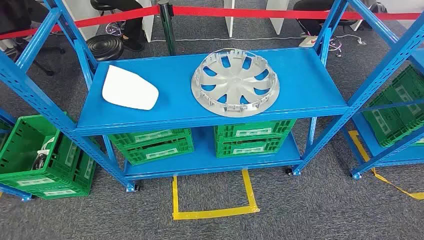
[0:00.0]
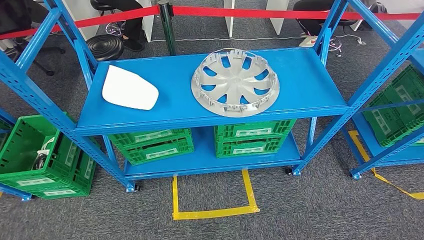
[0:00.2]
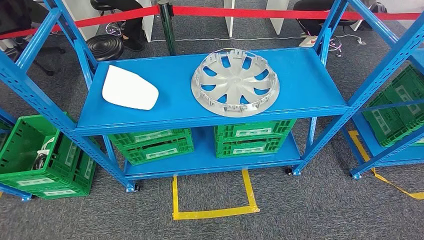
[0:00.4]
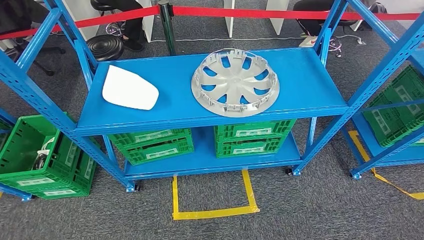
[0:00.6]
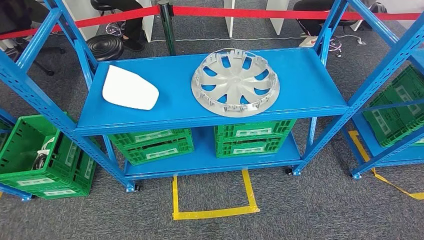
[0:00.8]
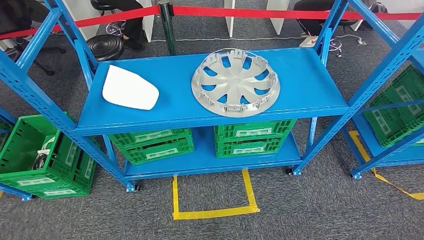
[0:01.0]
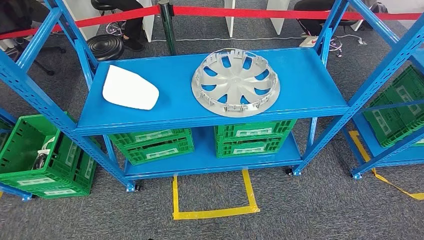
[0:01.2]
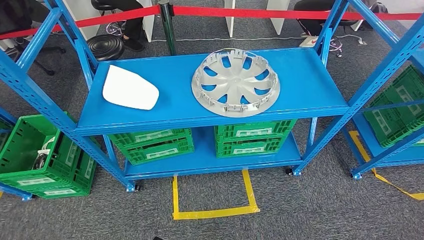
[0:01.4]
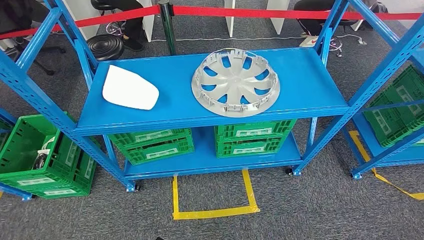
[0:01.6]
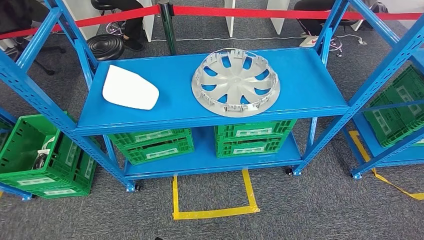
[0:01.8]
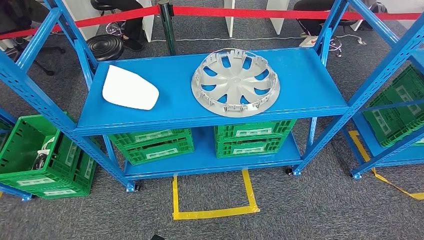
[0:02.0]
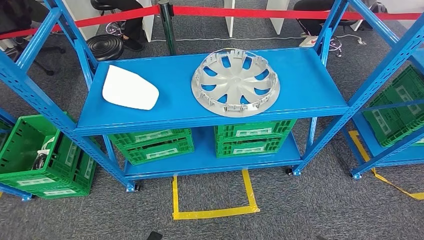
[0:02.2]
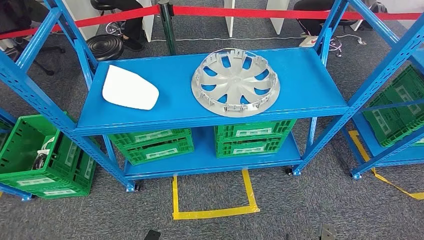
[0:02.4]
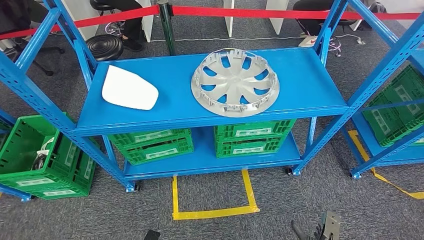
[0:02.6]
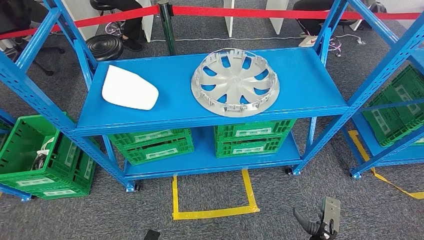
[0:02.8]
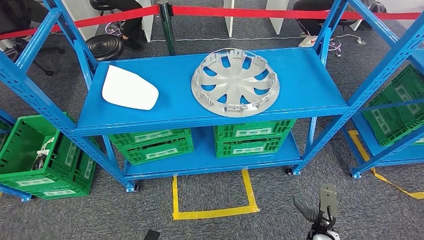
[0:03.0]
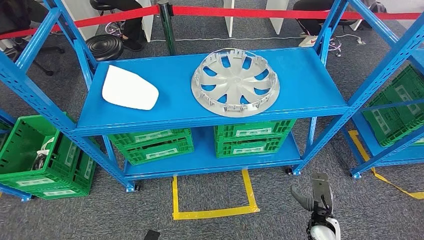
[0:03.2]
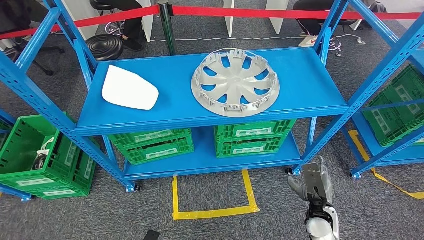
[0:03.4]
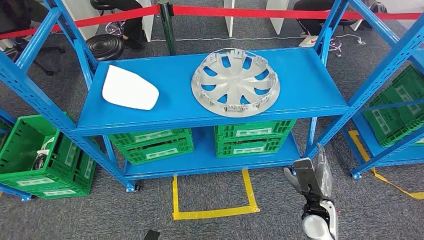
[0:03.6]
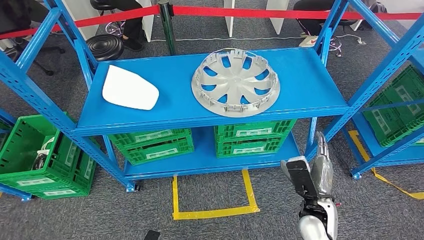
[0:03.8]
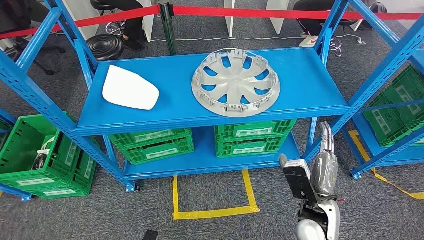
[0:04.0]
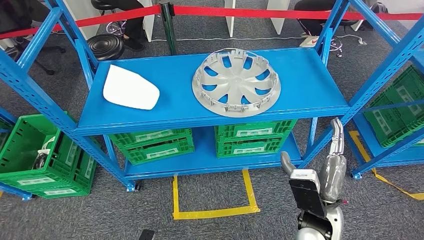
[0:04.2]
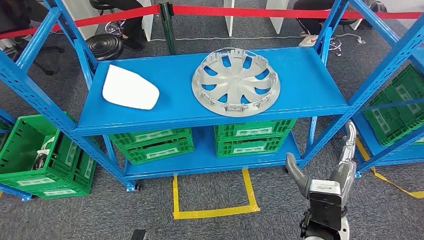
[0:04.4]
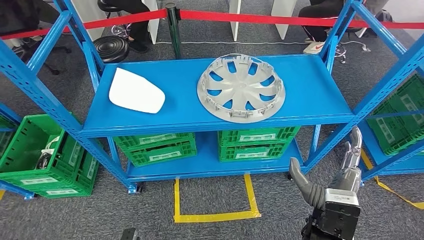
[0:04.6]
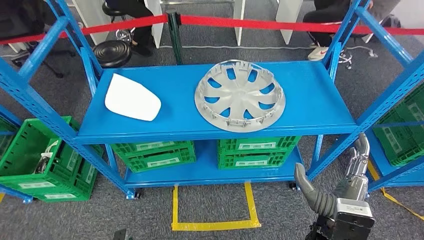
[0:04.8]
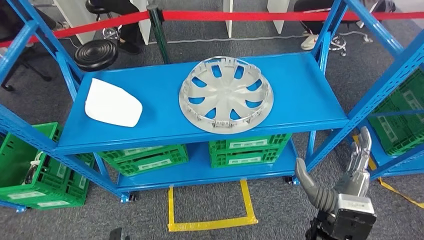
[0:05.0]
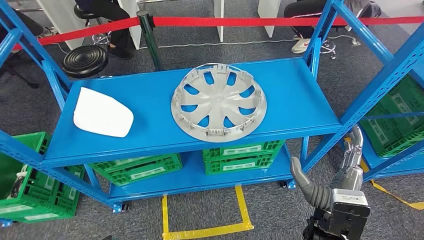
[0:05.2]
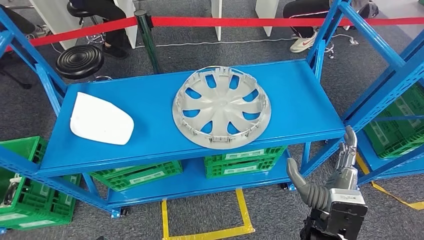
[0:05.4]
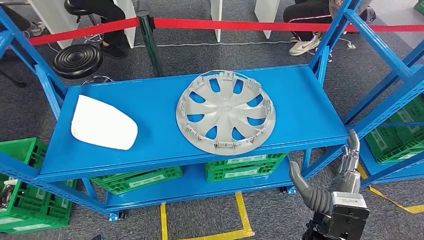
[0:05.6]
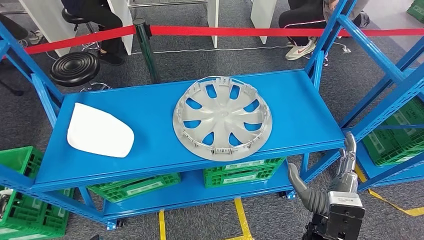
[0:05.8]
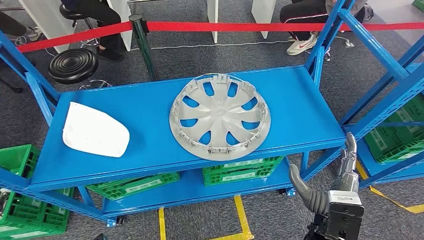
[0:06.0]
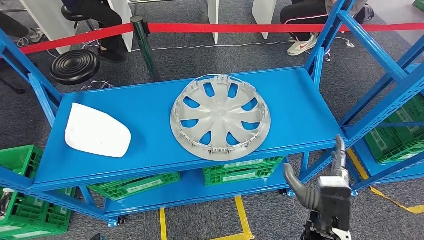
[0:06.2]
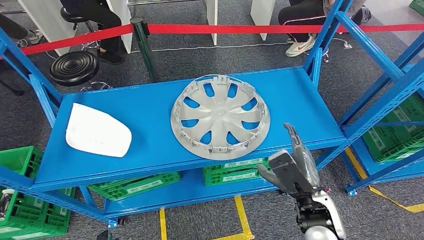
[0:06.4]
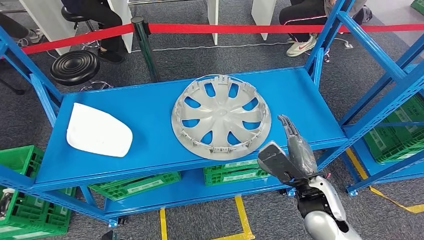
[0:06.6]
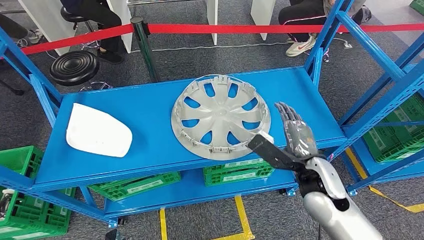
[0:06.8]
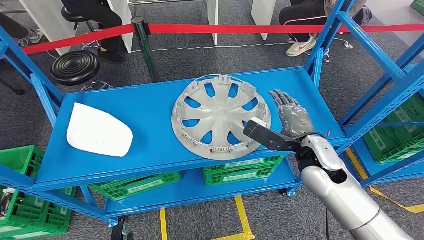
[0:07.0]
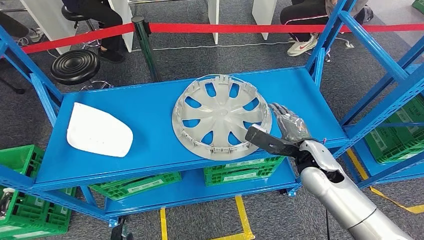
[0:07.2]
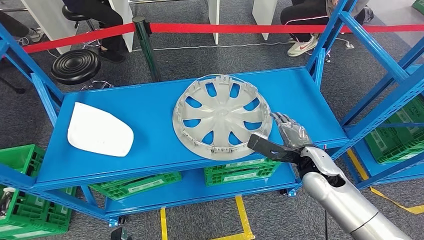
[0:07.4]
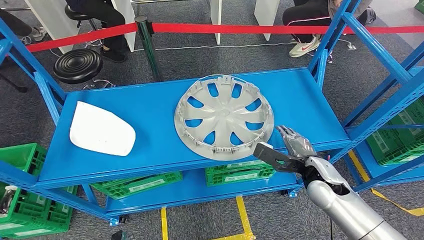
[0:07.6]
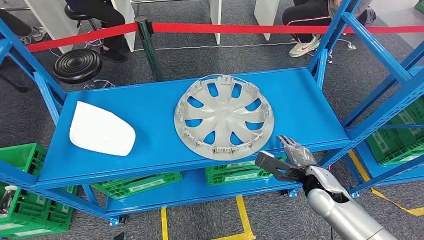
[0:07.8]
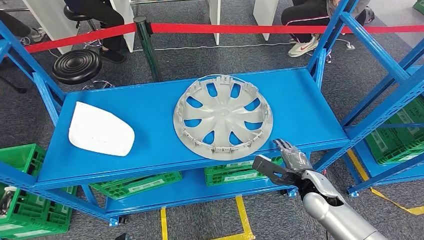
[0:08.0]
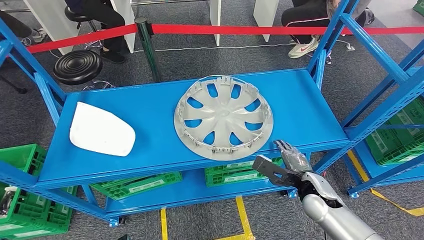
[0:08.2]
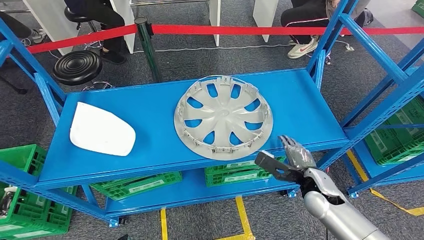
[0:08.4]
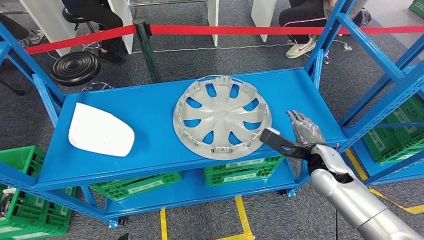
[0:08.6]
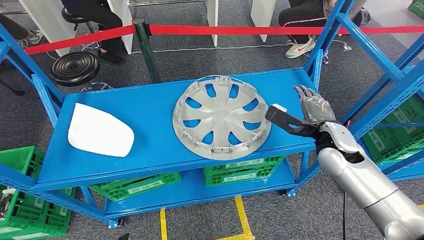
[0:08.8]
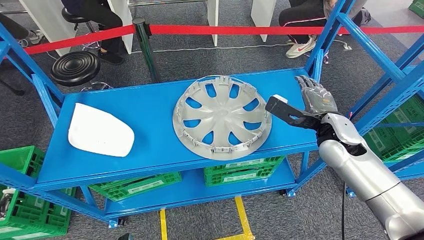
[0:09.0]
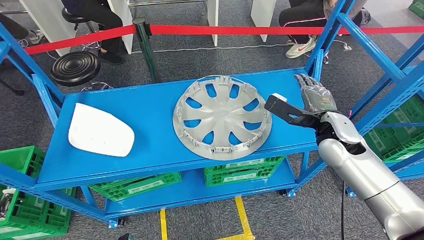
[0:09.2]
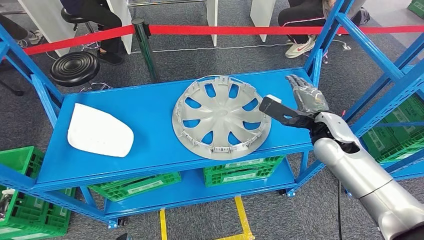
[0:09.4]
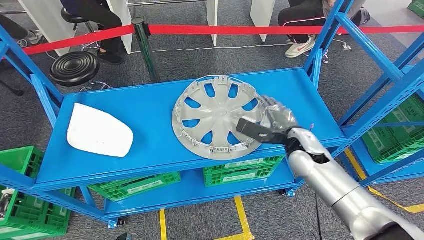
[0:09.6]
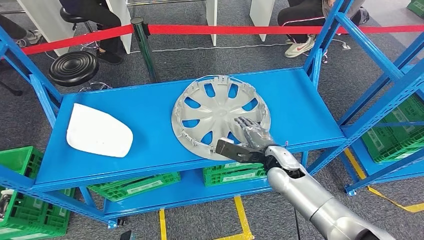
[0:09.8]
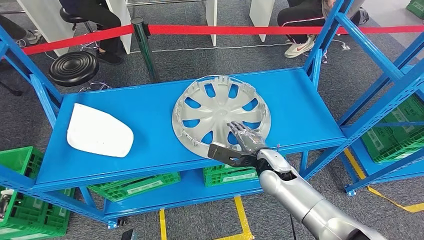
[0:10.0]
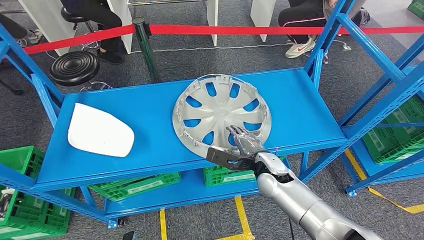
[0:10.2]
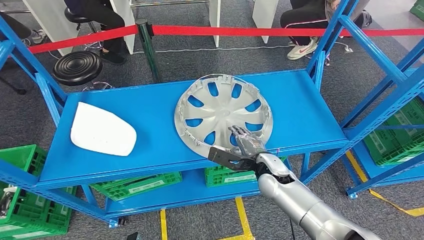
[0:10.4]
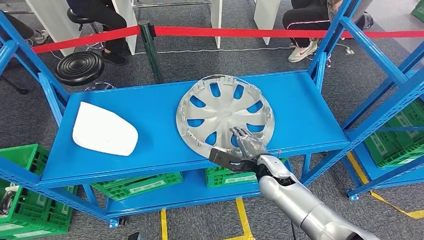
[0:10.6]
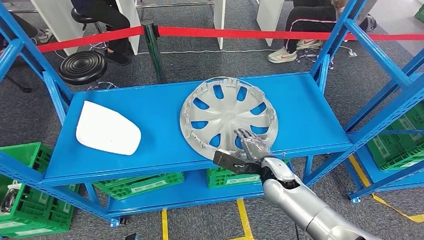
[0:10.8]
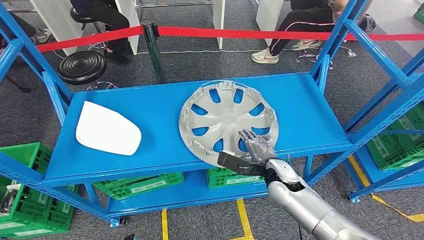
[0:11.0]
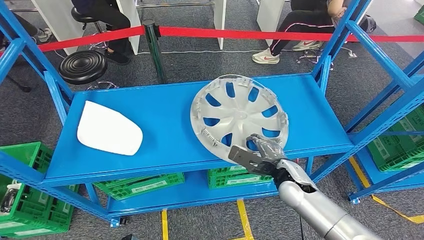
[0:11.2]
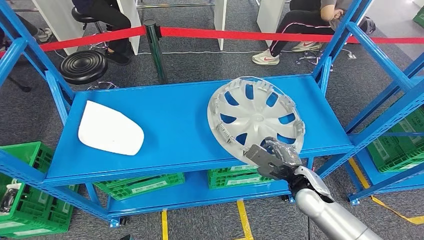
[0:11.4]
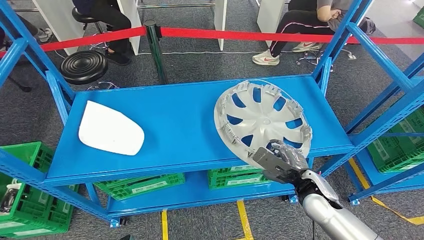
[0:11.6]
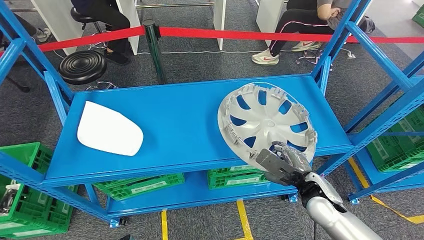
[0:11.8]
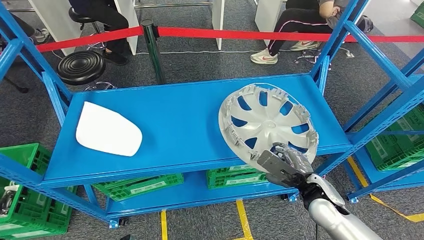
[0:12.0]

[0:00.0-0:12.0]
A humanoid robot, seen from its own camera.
0:01.6 to 0:03.0: The right hand travels forward and upward by roughly 20 cm.
0:03.0 to 0:04.4: The right hand moves upward and to the left, approximately 25 cm.

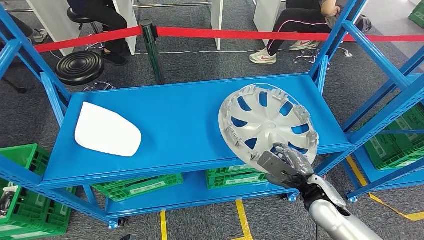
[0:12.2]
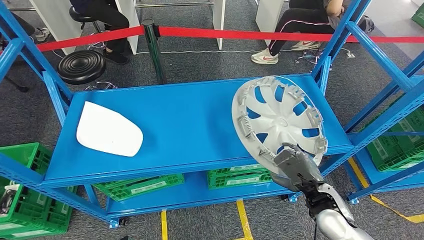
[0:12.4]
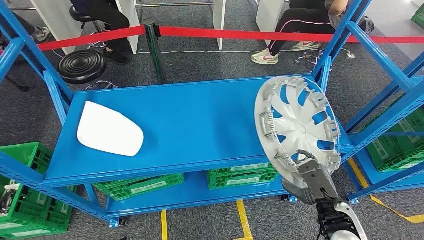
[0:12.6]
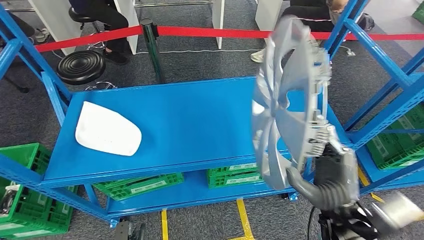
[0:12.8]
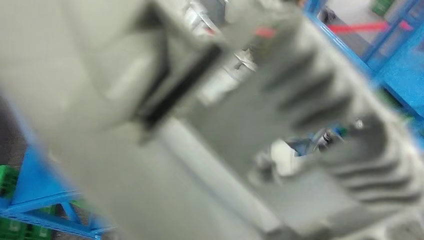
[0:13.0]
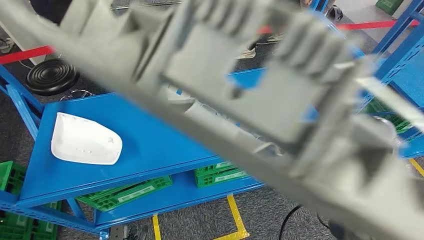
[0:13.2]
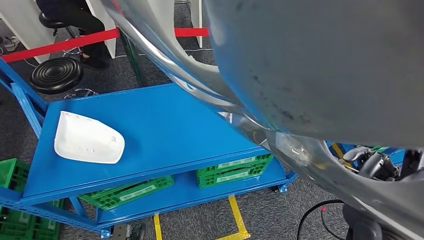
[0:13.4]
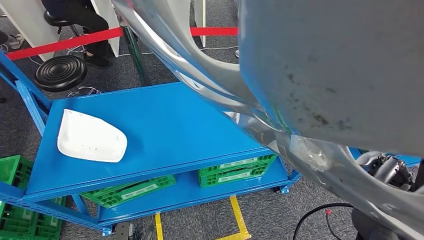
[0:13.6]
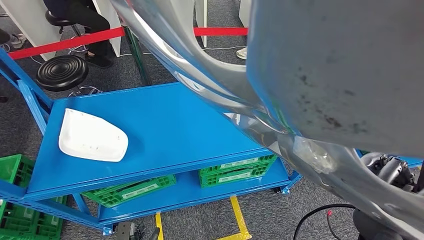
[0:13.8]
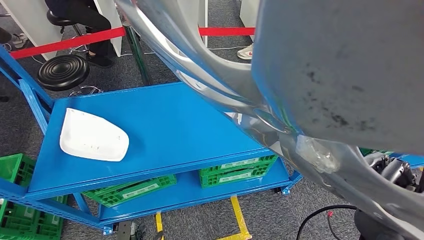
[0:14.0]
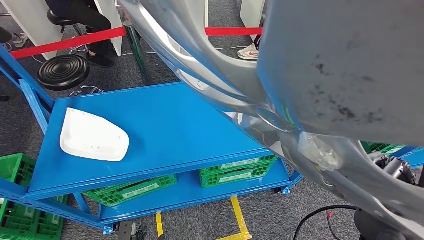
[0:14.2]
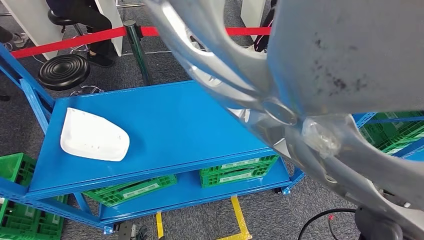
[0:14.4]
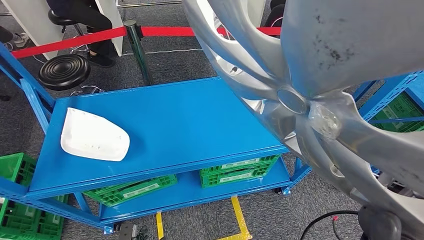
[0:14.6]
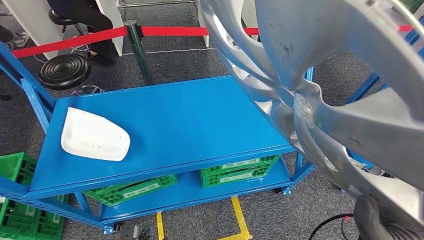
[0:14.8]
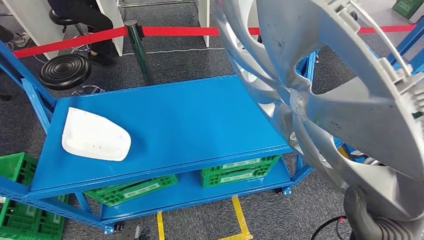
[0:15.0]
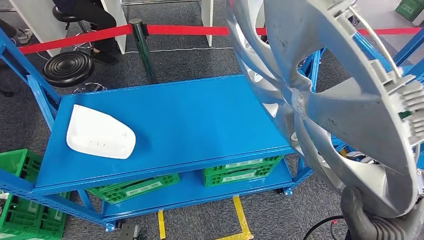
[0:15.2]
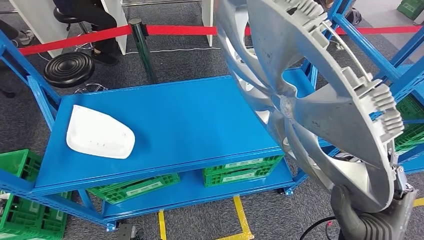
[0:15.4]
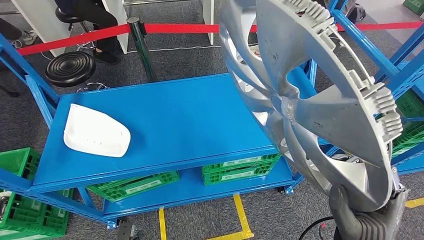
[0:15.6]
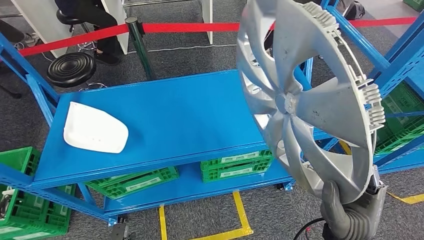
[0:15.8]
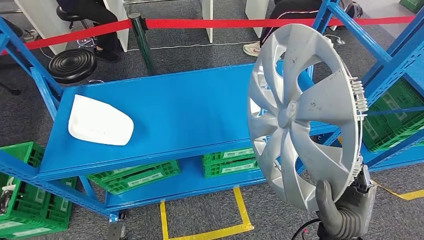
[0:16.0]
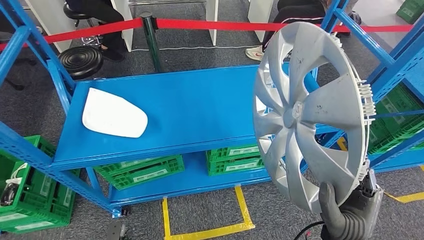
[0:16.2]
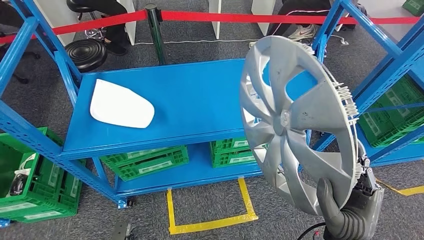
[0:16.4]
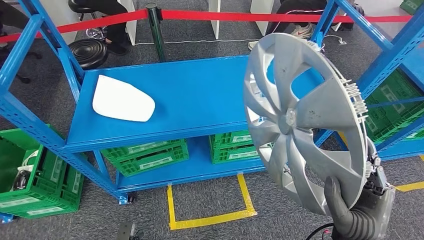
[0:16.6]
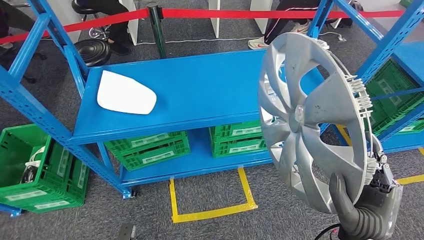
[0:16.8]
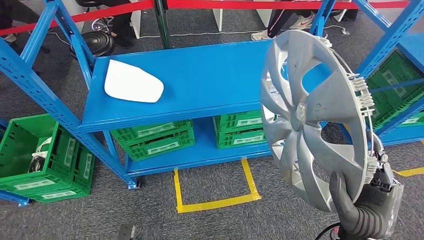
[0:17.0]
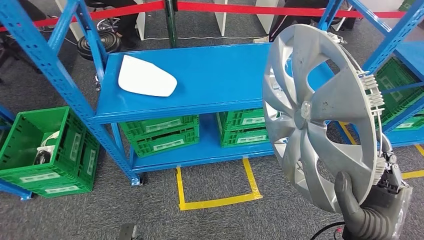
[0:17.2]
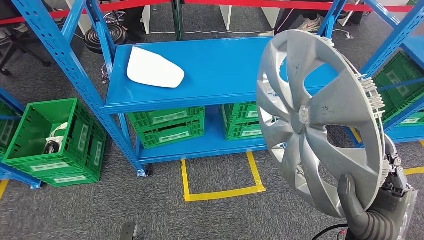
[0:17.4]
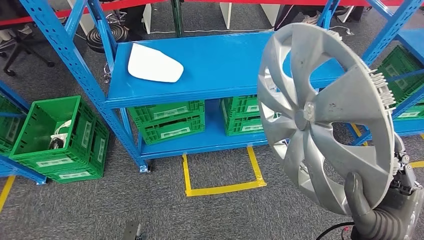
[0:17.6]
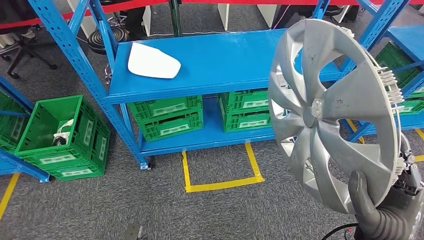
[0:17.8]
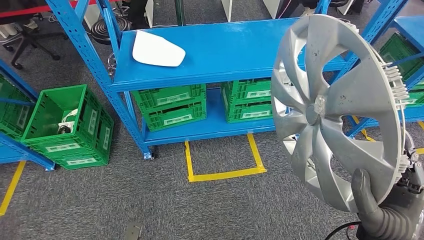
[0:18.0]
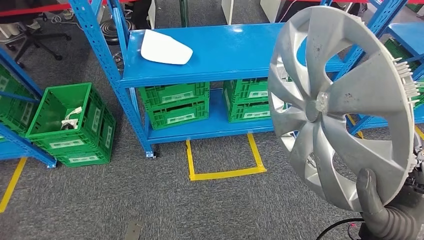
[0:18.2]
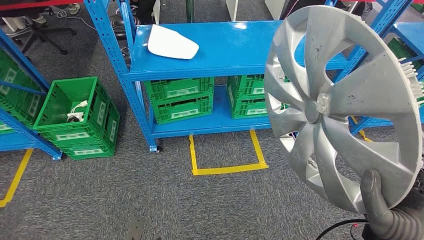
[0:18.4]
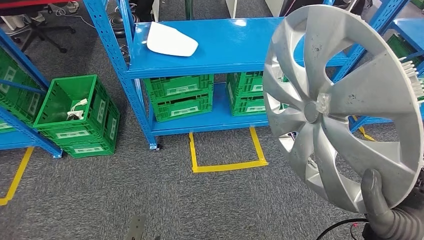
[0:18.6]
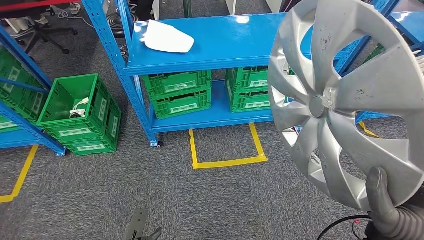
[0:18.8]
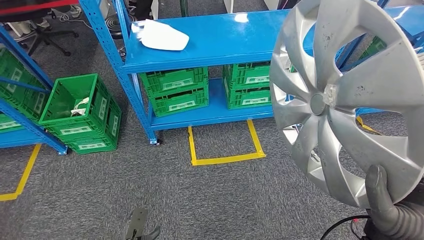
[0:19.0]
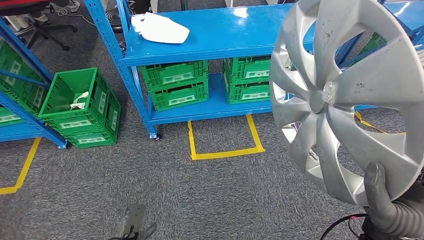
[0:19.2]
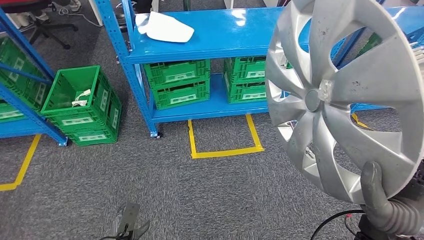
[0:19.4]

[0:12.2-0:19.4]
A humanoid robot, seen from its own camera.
Step, 0:12.2 to 0:14.8: Pick up the small component from the shelf.
